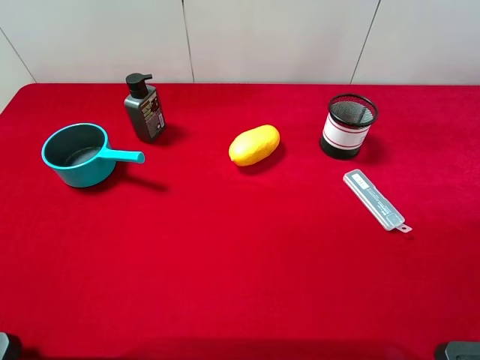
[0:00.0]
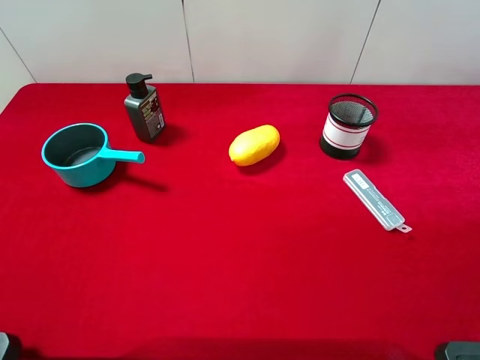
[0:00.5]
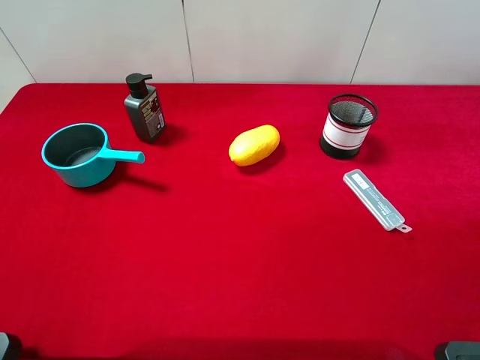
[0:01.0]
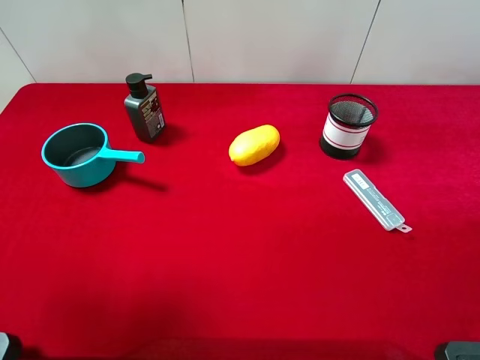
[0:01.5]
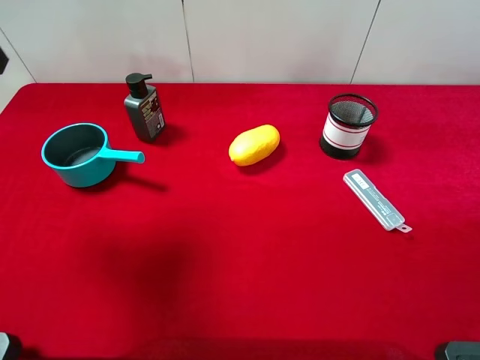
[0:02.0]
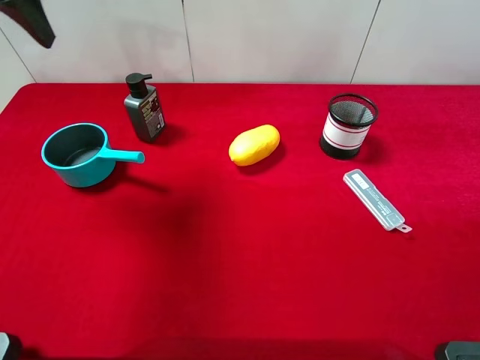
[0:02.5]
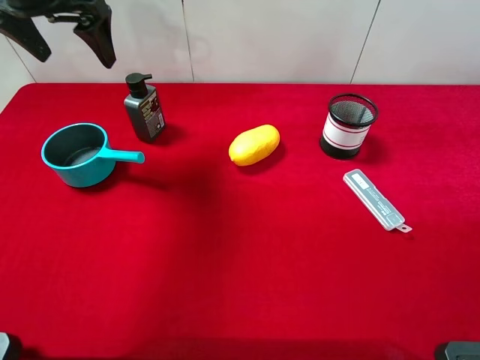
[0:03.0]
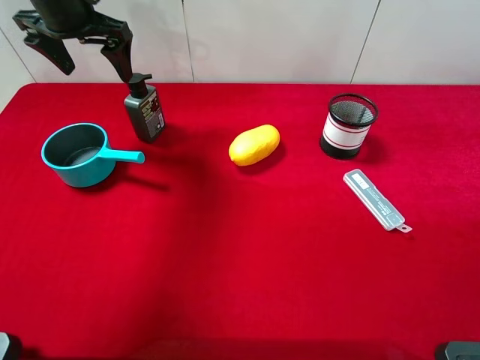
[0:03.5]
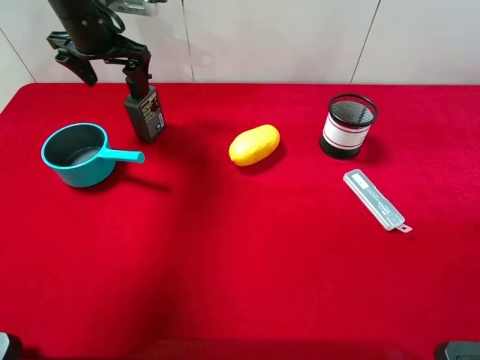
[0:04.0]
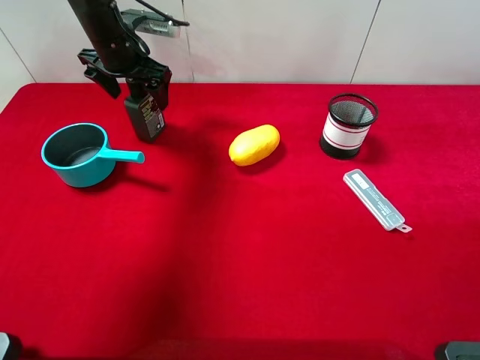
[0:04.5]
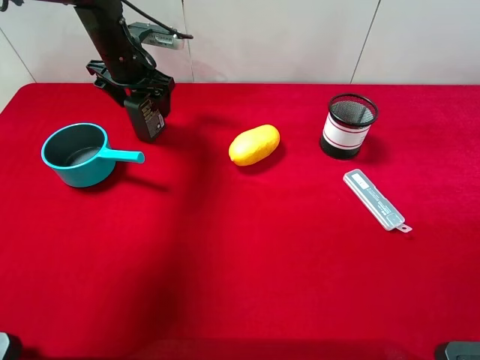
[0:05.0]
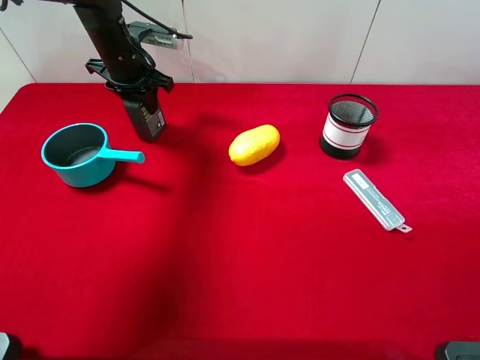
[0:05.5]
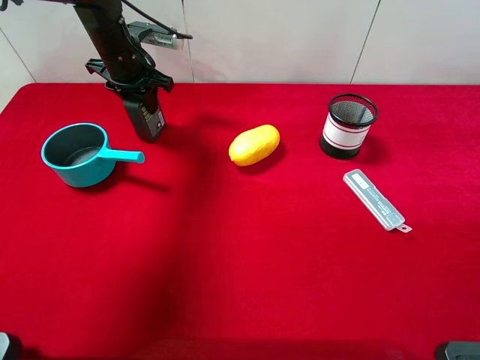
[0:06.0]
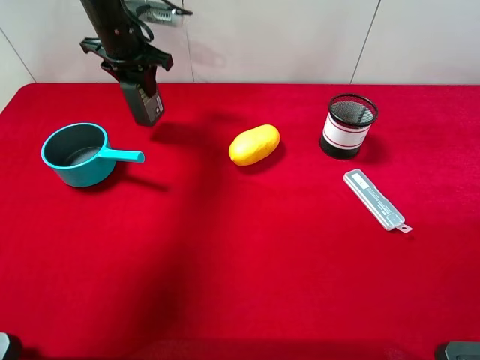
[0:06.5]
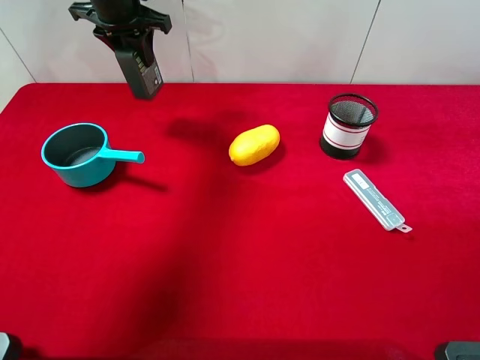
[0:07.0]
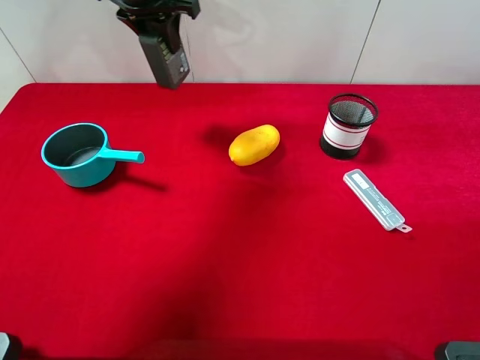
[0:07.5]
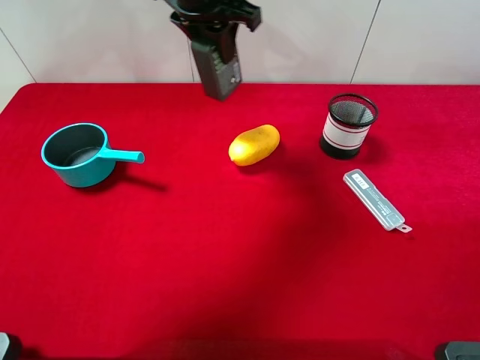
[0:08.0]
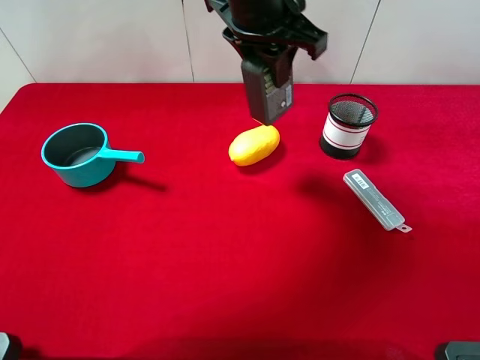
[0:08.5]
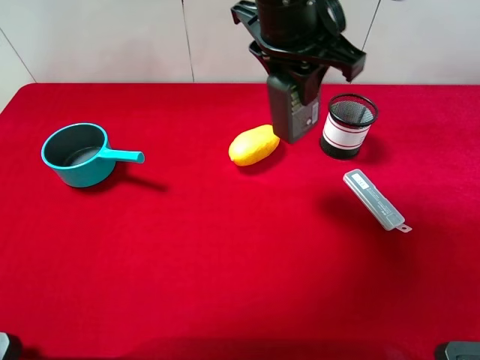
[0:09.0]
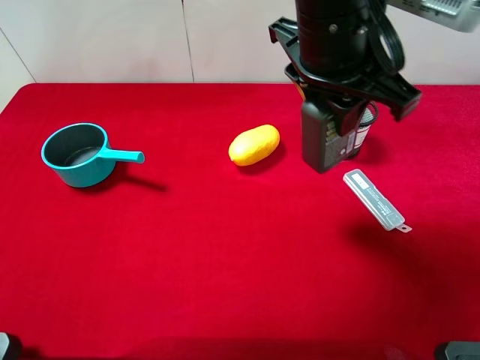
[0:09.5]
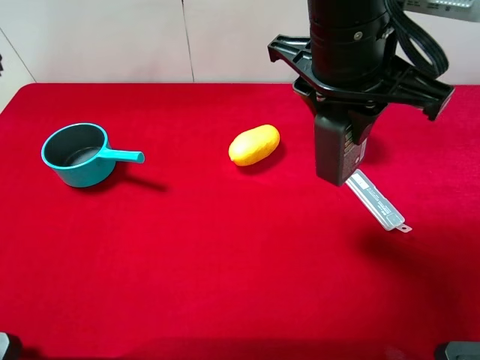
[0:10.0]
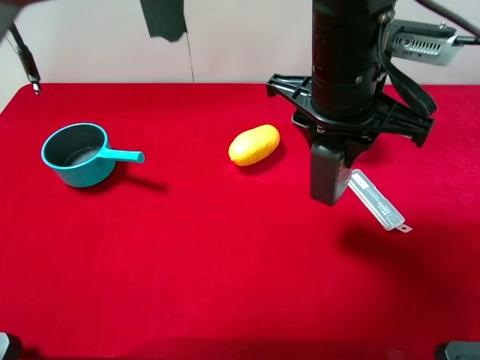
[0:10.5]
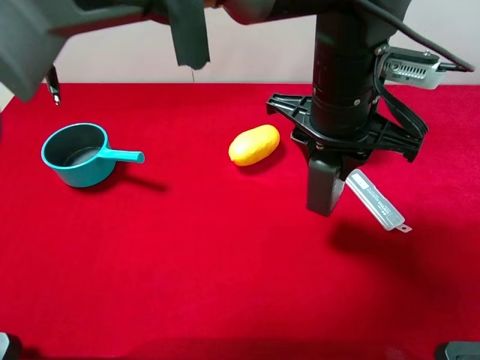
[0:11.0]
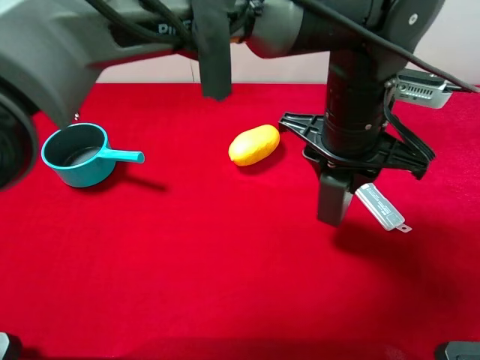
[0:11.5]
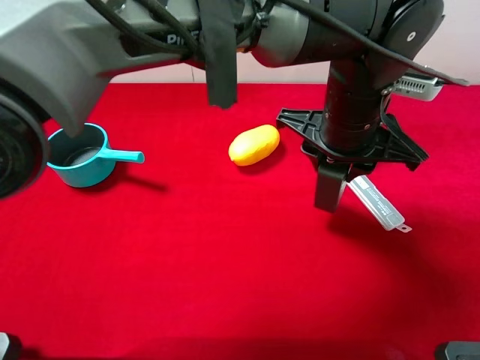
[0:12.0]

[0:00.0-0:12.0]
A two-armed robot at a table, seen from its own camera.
Task of the whole recording: the gripper move the object.
Step, 0:00.0 to 0:05.5: Grasp the hard facial cleanser with the left gripper.
0:00.0 to 0:02.0: The left gripper travels forward by about 25 cm.
0:02.0 to 0:04.0: The left gripper moves forward and downward, roughly 25 cm.
0:04.0 to 0:06.0: The left gripper travels downward by about 5 cm, and closes.
0:06.0 to 0:08.0: The left gripper shifts about 20 cm to the right, upward and backward.
0:08.0 to 0:10.0: The left gripper shifts approximately 20 cm backward and to the right.
0:10.0 to 0:12.0: The left gripper travels downward by roughly 10 cm.

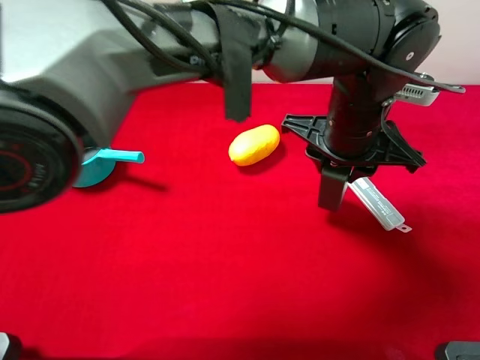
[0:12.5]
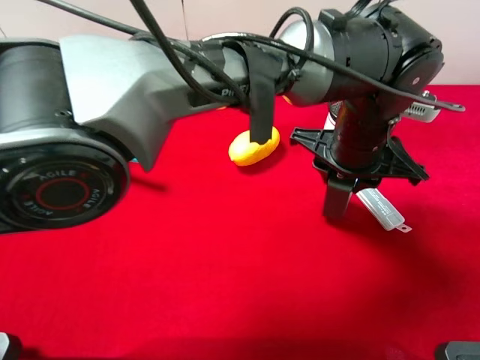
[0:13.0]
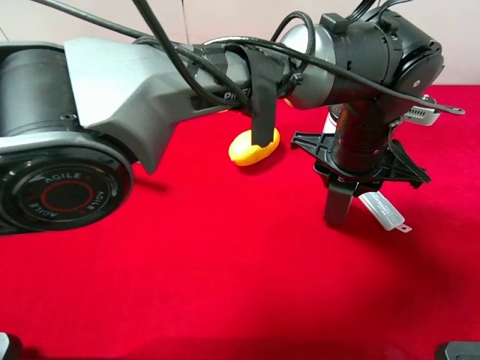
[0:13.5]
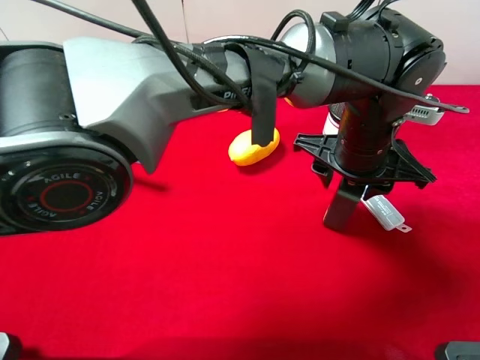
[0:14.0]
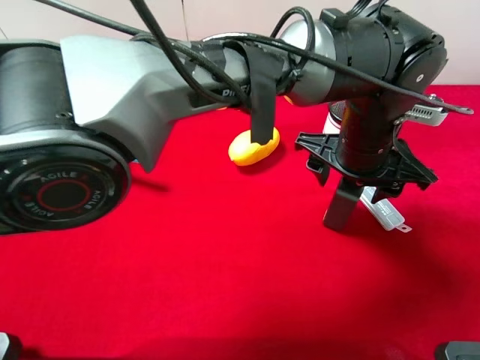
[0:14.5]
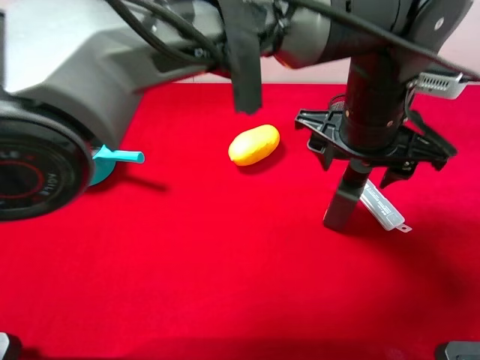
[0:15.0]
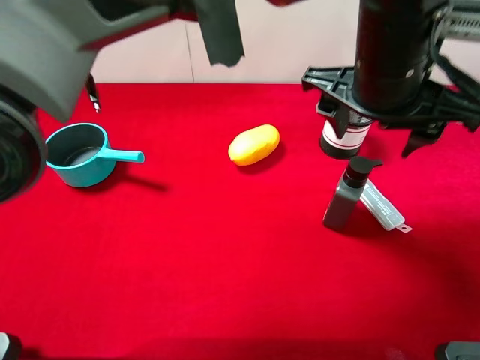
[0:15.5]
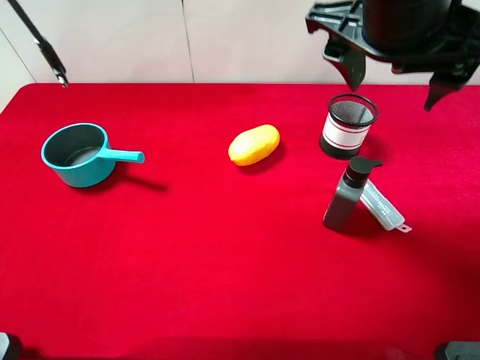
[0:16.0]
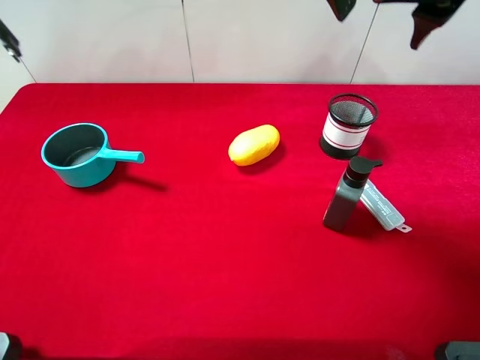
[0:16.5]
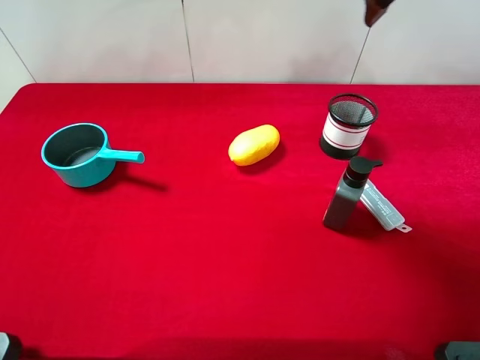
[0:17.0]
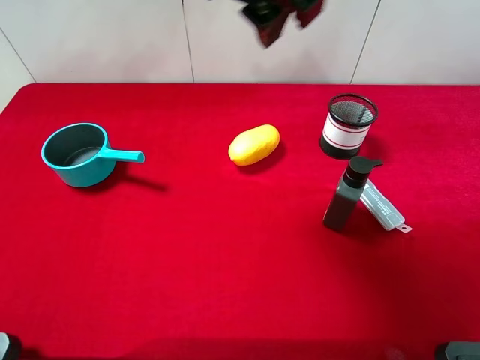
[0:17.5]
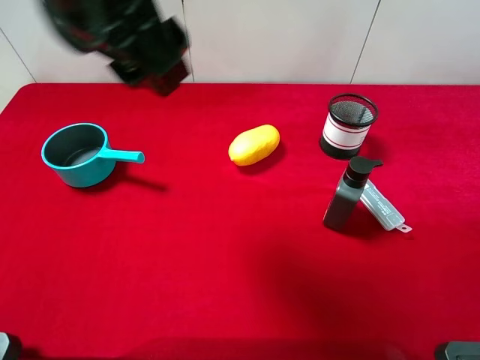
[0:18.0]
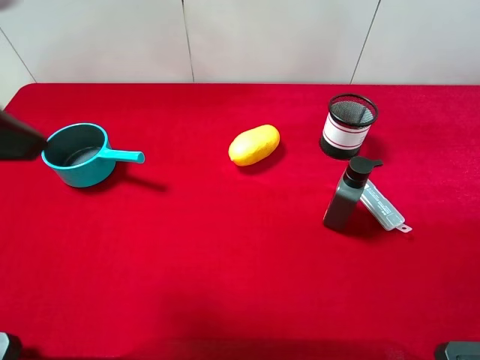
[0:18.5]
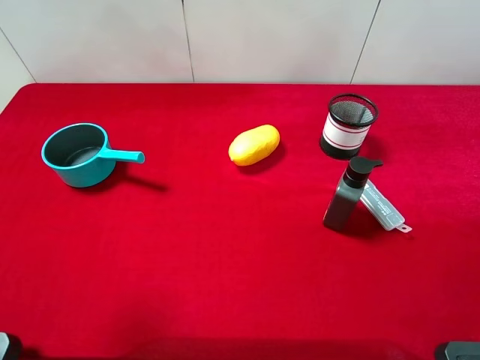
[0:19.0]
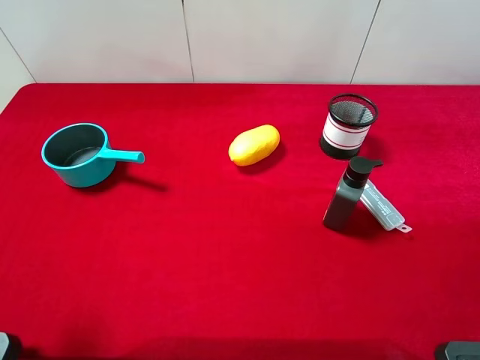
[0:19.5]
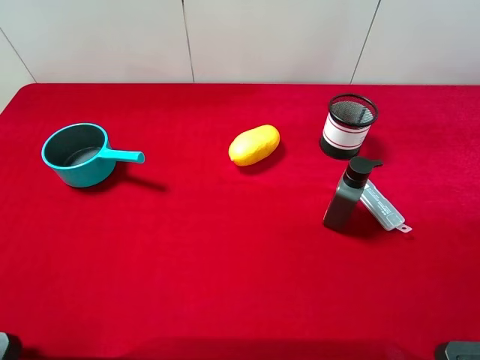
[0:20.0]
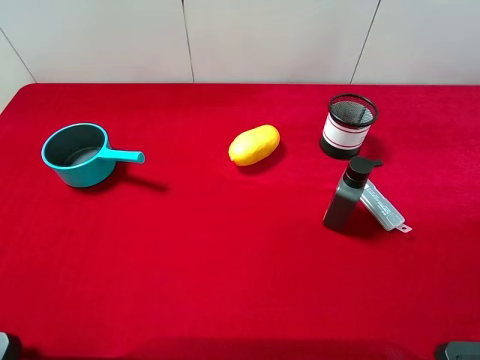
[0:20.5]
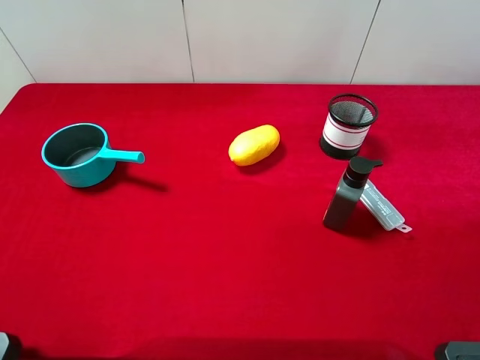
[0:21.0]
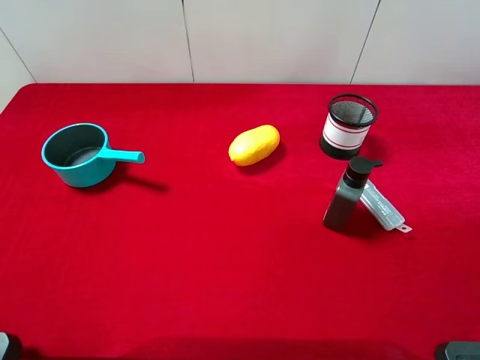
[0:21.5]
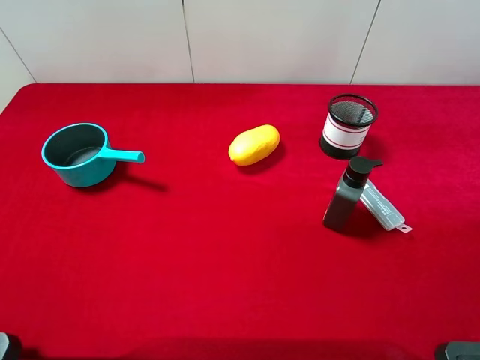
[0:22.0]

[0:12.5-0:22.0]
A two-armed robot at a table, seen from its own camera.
Task of the whole recording: the gripper move the object.
Step, 0:12.5 to 0:15.0: Place the hard facial cleanser on the table with the left gripper.
0:12.5 to 0:14.5: The left gripper opens.
0:14.5 to 0:16.5: The left gripper is displaced upward by roughly 20 cm.
0:16.5 to 0:18.0: The left gripper goes about 20 cm to the left.
0:18.0 to 0:20.0: The left gripper is displaced to the left, backward and downward by about 30 cm, and opens its fingers.
